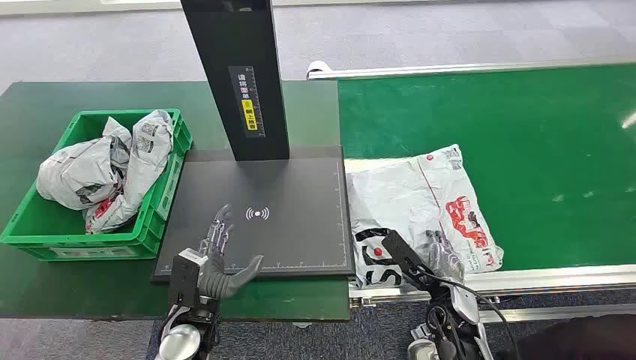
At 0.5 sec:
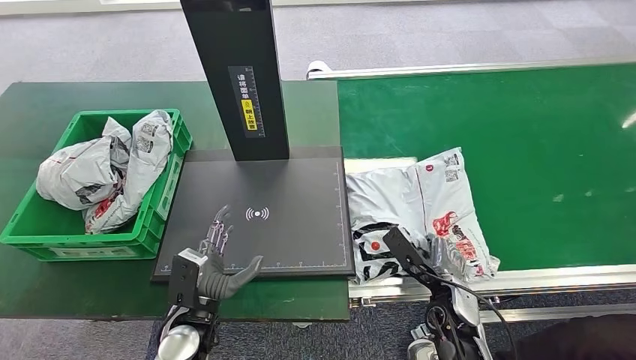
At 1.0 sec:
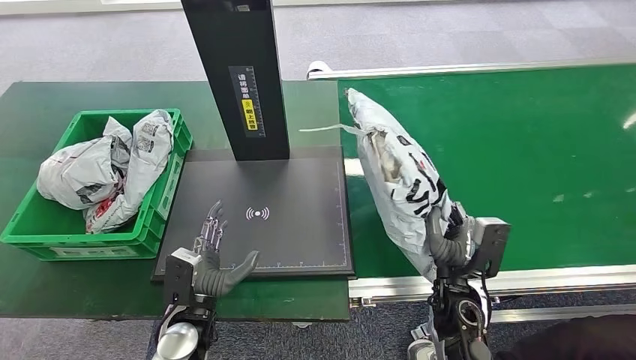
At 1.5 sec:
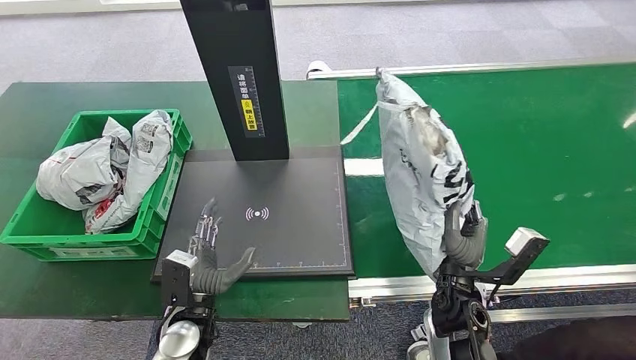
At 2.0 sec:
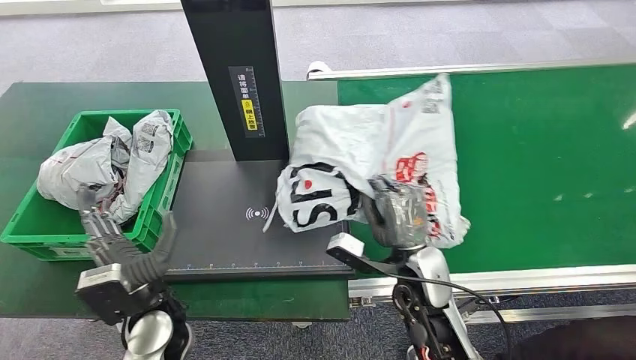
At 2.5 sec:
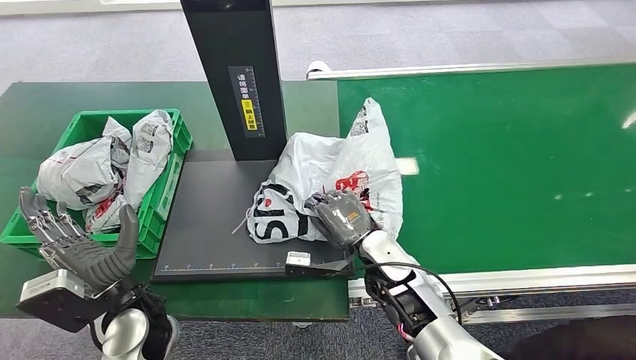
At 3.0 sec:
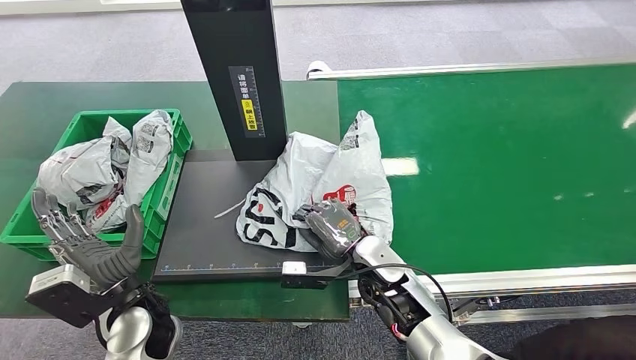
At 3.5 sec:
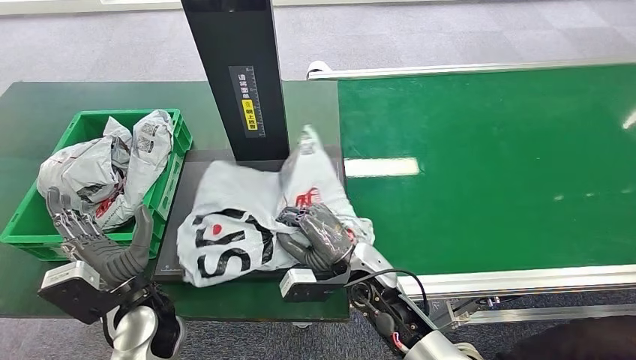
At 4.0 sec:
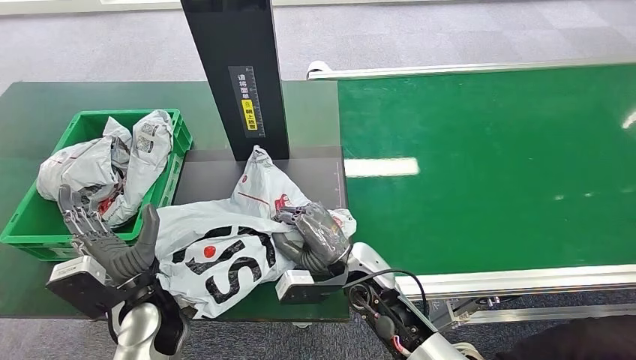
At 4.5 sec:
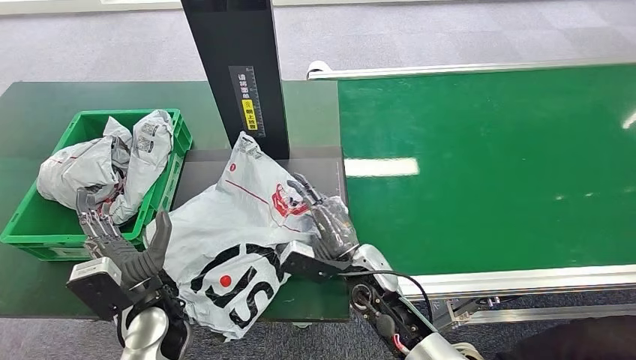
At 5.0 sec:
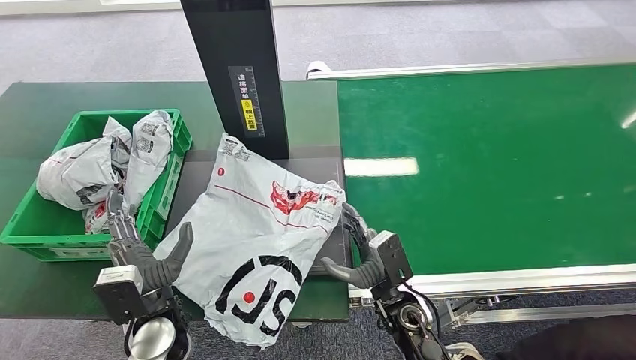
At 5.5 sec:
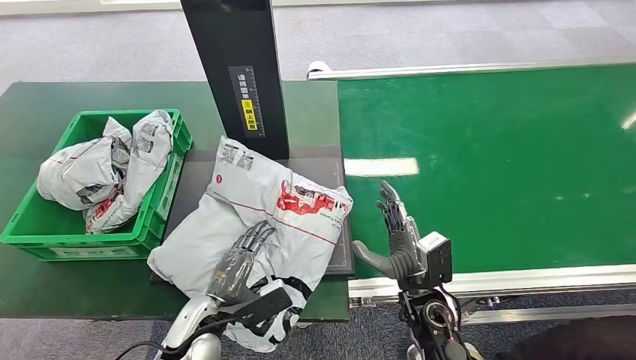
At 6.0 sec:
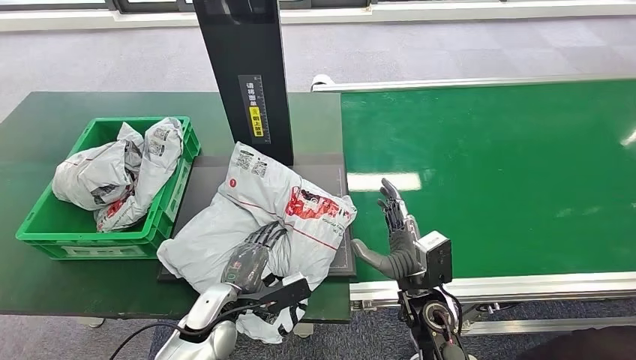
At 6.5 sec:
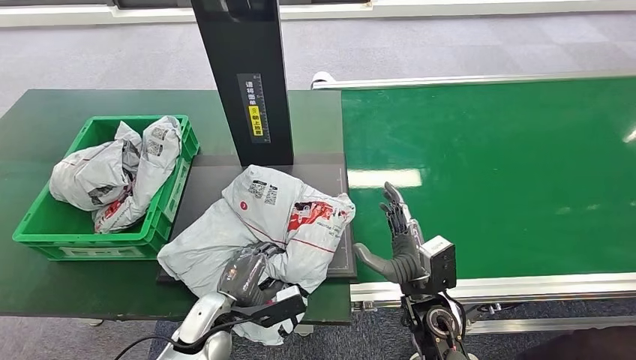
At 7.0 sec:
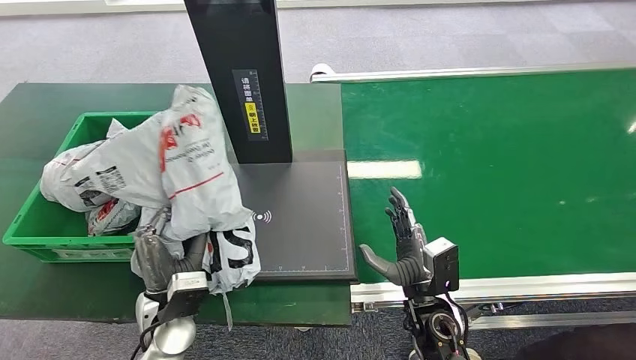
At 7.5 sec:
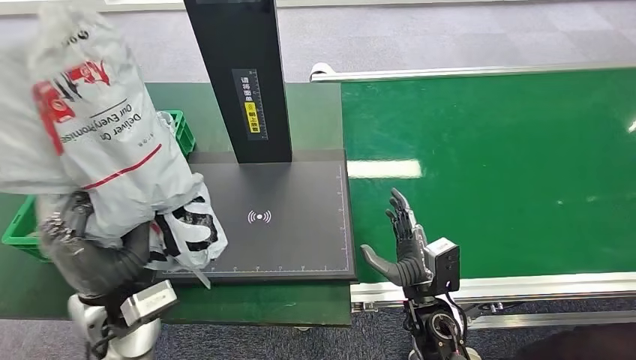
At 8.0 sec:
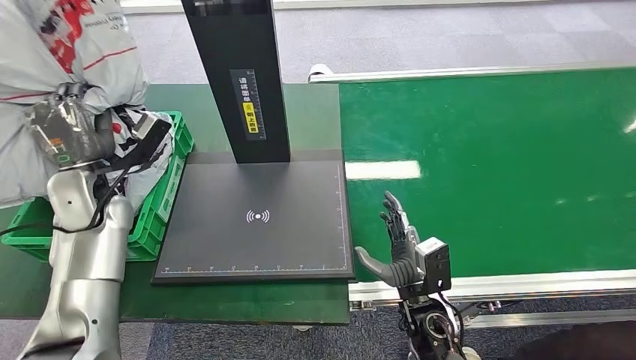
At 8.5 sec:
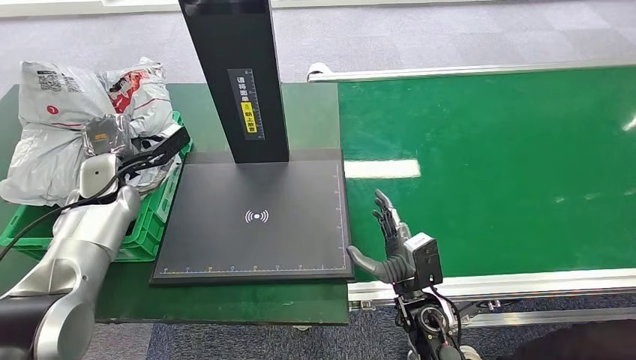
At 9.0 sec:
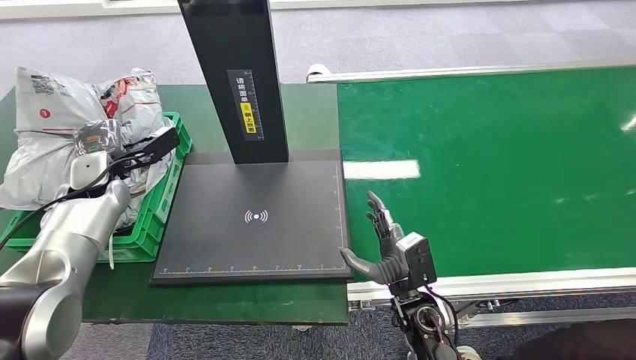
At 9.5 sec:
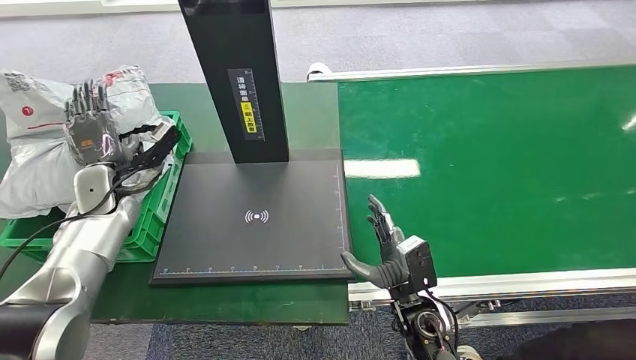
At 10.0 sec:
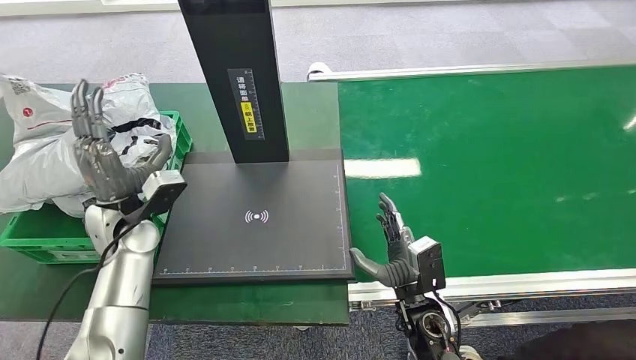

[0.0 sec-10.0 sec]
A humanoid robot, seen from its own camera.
Step, 0.0 sec to 2.0 sec: Pick up the package from the conveyor belt.
Step, 2.5 sec to 4.0 sec: Place the package onto the inbound machine.
Step, 4.5 sec to 7.0 sec: Pick up the package from the inbound machine.
Step, 7.5 sec to 10.0 sec: Place the package into the parcel locker.
